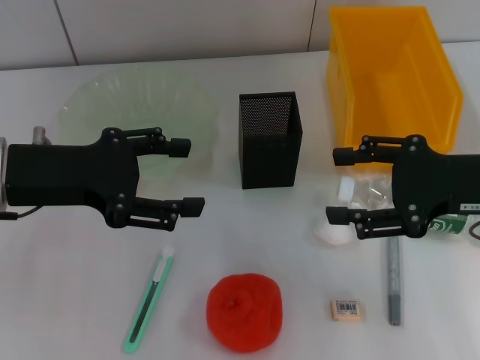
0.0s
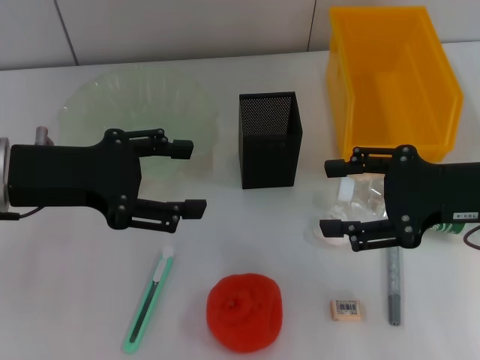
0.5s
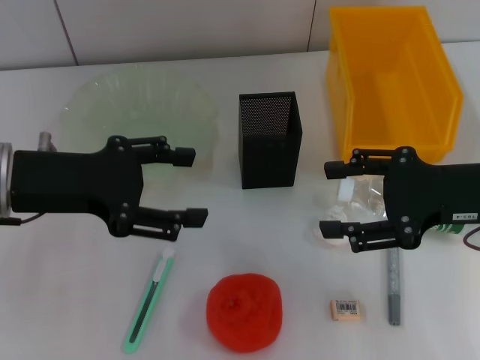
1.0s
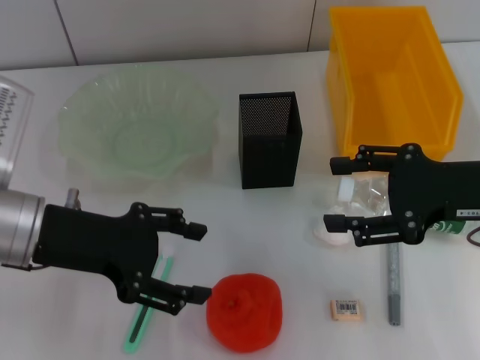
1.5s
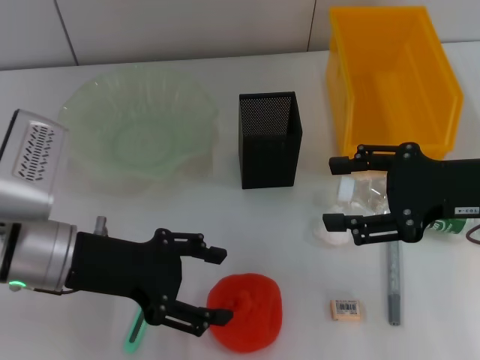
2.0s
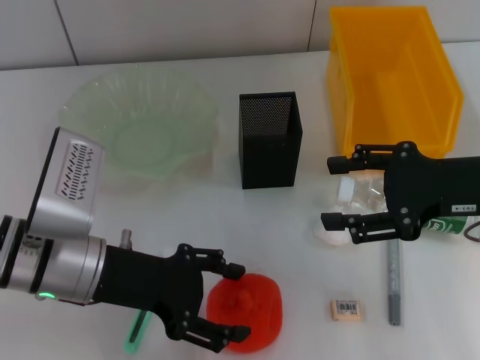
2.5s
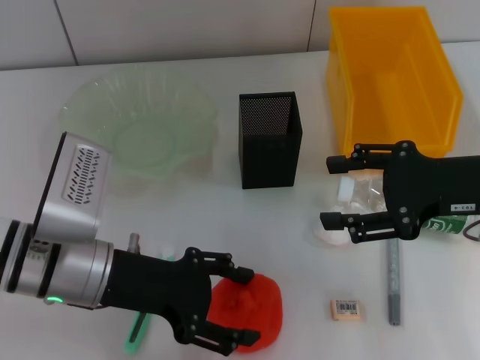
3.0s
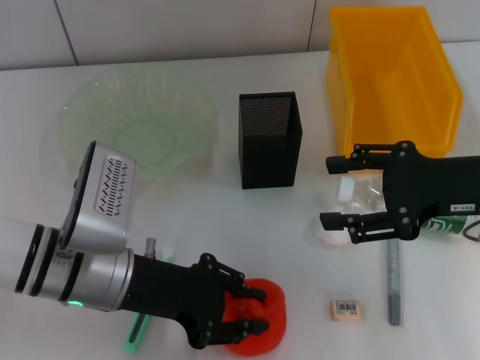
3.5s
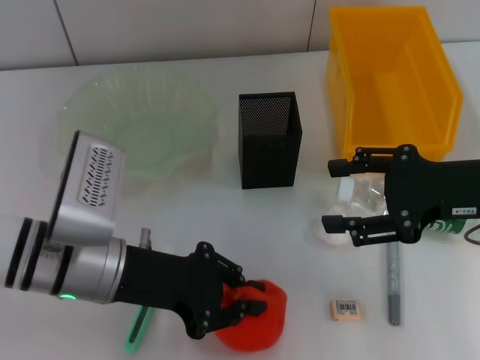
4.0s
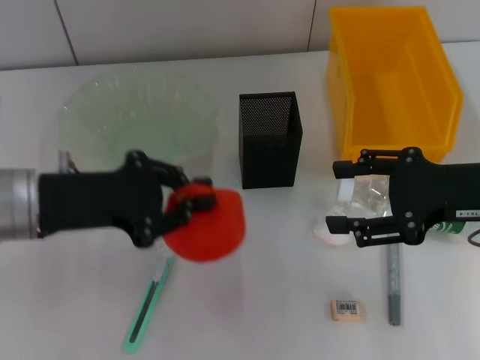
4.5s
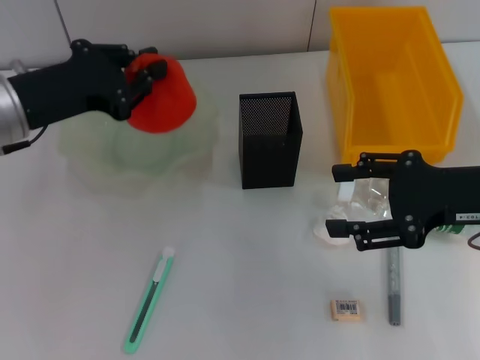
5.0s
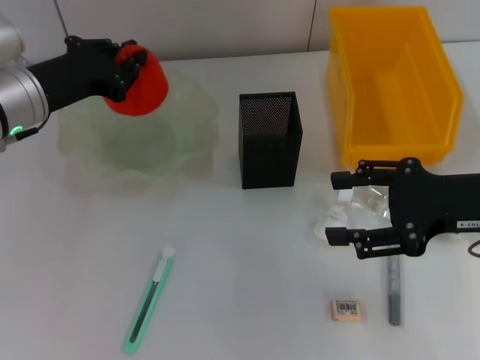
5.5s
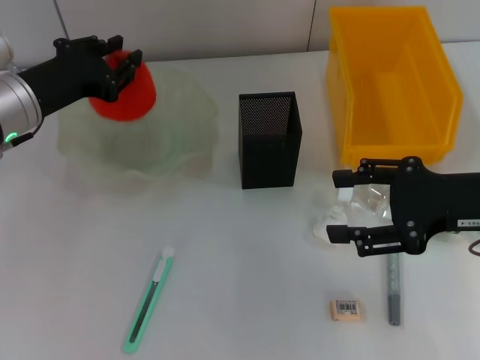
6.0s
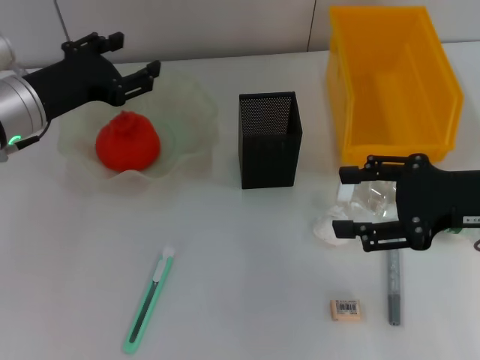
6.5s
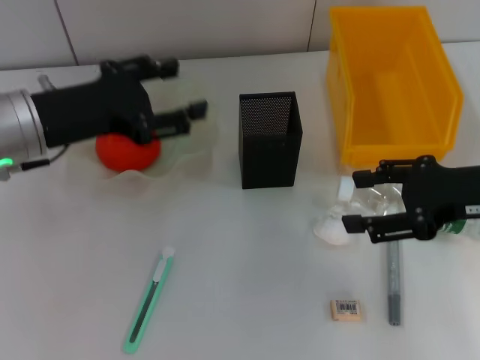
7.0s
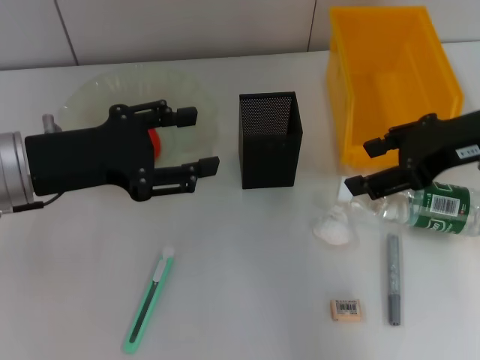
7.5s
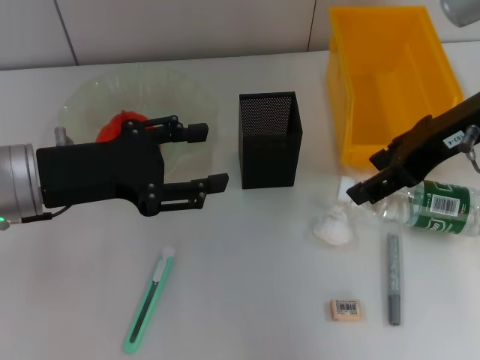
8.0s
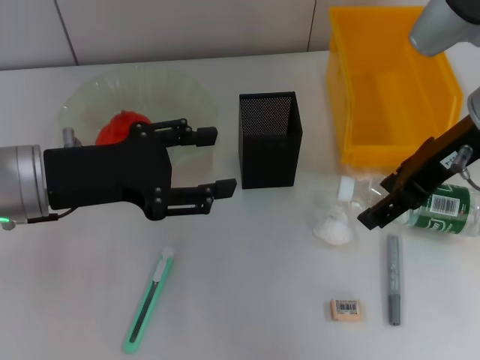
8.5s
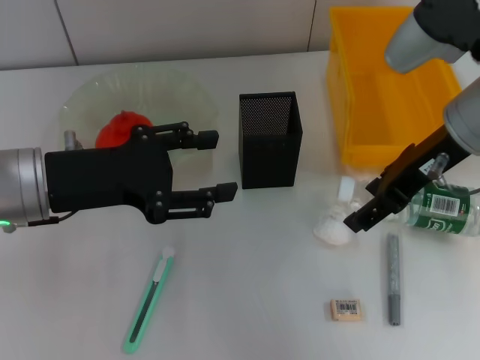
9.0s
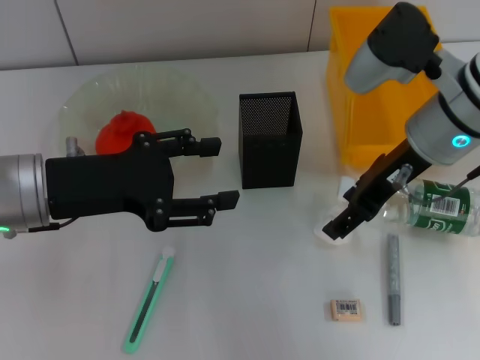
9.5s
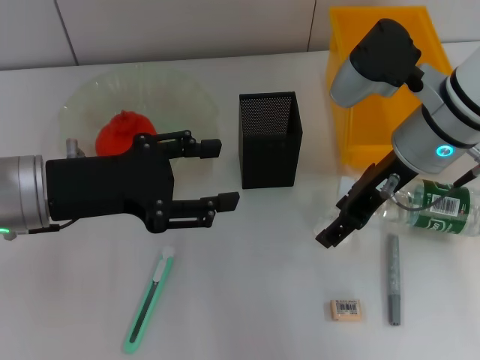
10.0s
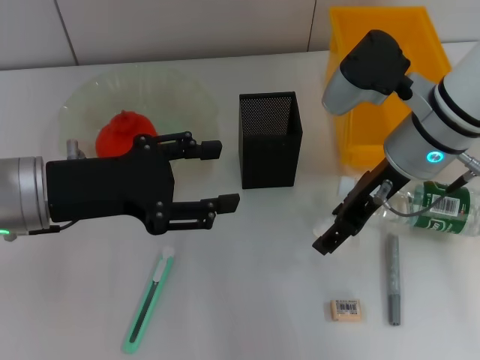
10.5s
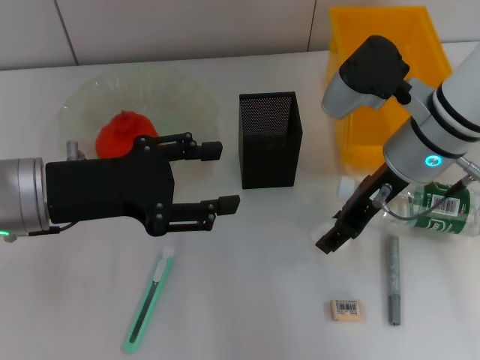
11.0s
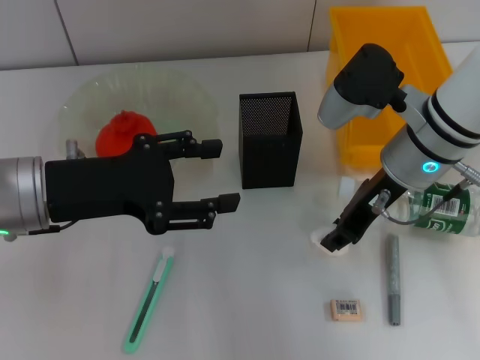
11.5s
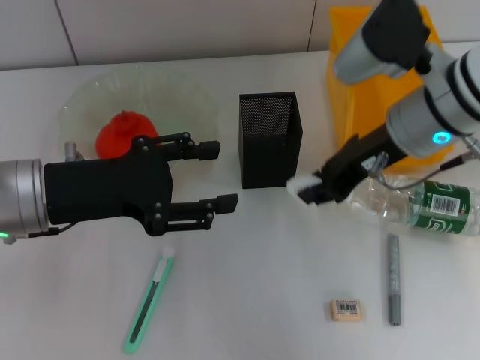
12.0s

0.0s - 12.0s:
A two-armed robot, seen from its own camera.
Step, 0.0s - 3.5s: Grab the orange with the left hand.
Step, 4.0s - 6.0s: Place the orange into the fruit bowl with the left hand.
Step, 6.5s - 11.0s: Grab the paper ball with the right hand.
0.0s - 2.0s: The left gripper travels downward by about 5 cm.
2.0s - 4.0s: The left gripper closes its fingers.
4.0s - 6.0s: The left gripper moves forward and to the left, some 15 cm.
6.0s - 8.0s: The left gripper is displaced backward by about 10 cm, and opens up, while the right gripper heads upward and forward, covering about 10 cm.
8.0s - 10.0s: The right gripper moves downward, about 5 cm.
10.0s - 12.0s: The right gripper closes.

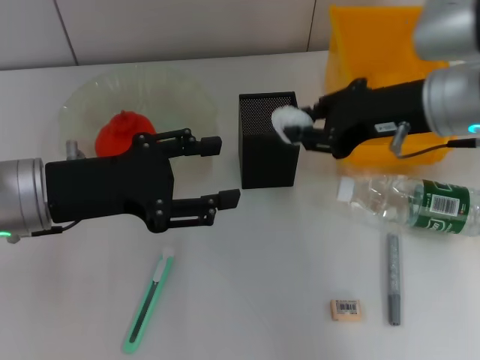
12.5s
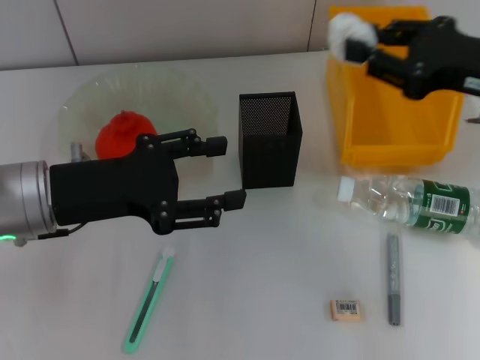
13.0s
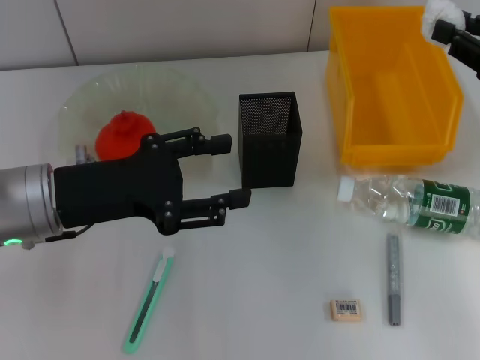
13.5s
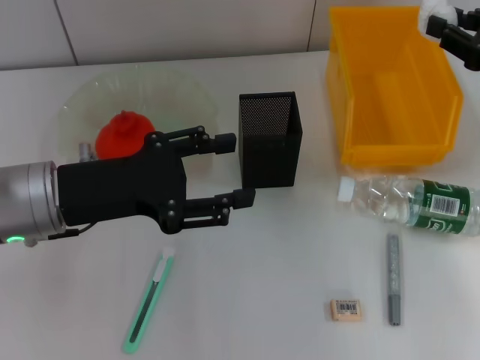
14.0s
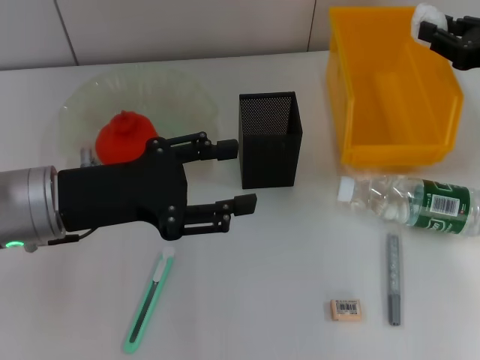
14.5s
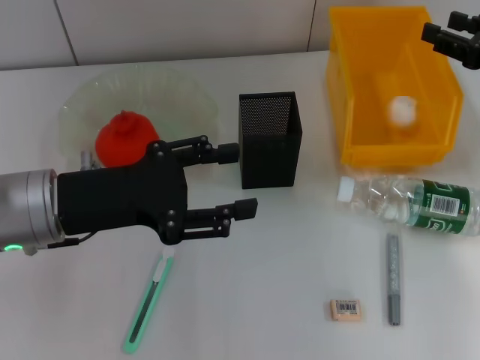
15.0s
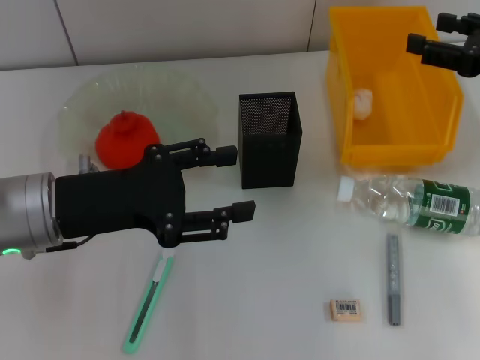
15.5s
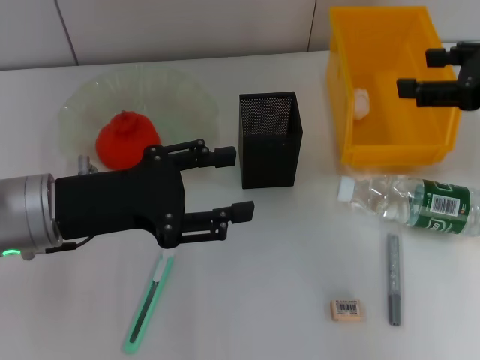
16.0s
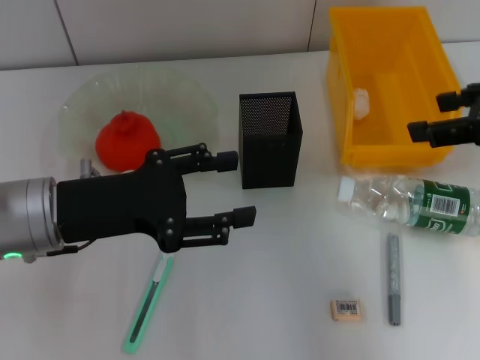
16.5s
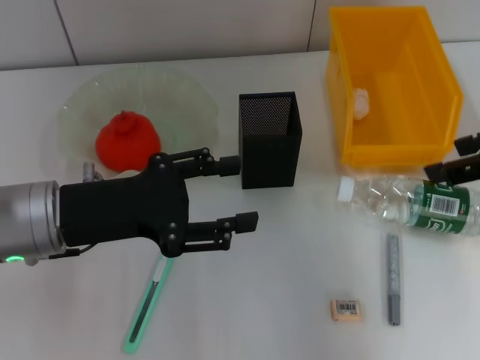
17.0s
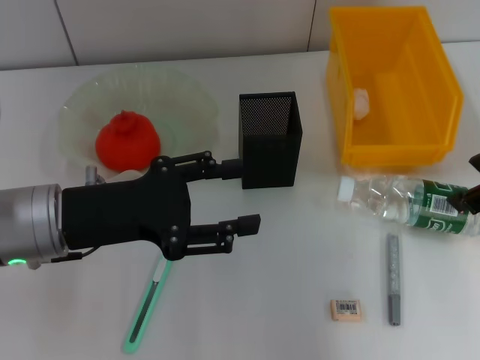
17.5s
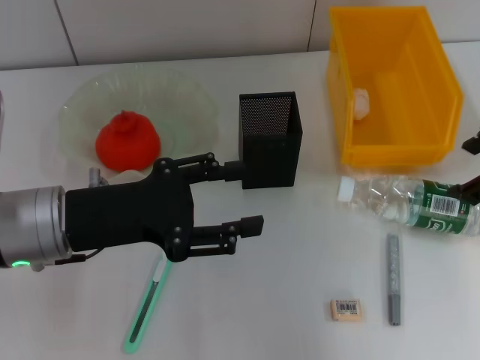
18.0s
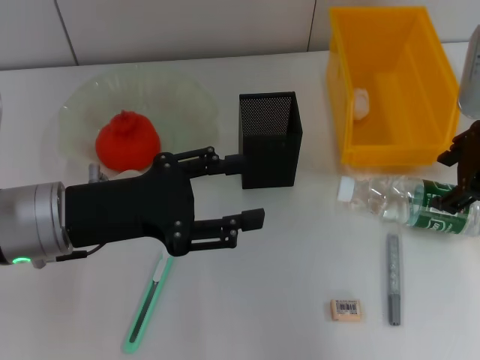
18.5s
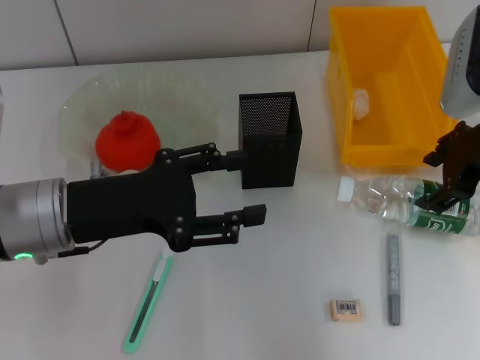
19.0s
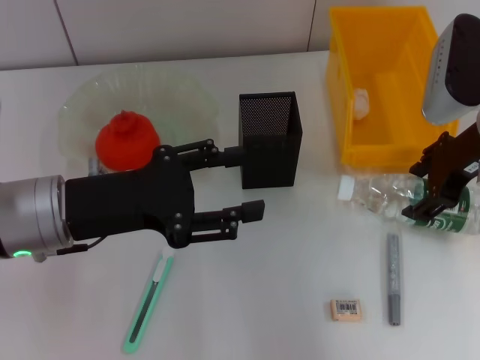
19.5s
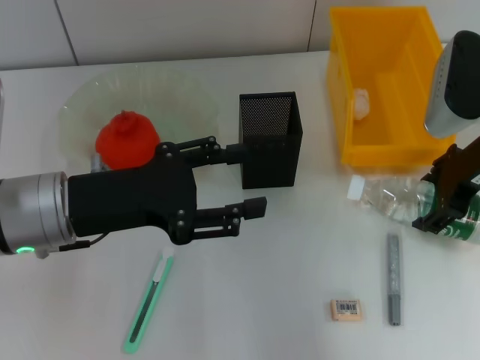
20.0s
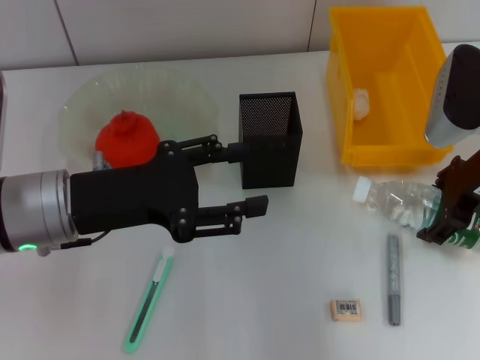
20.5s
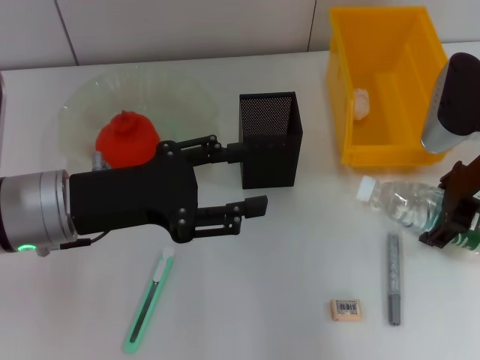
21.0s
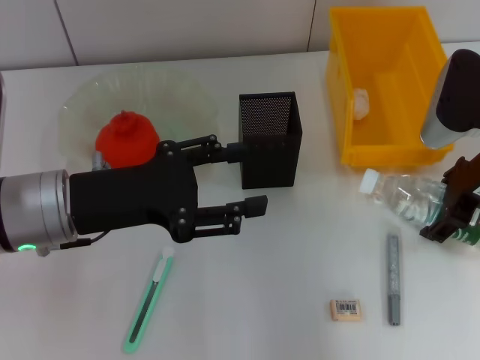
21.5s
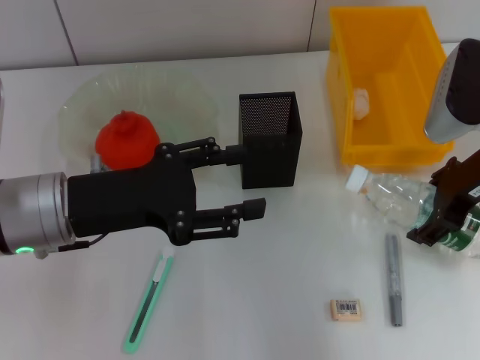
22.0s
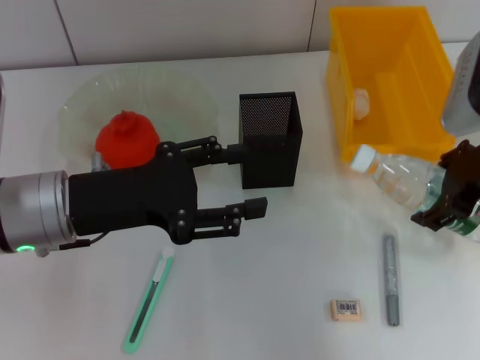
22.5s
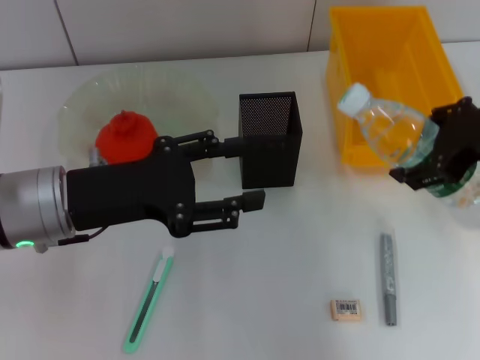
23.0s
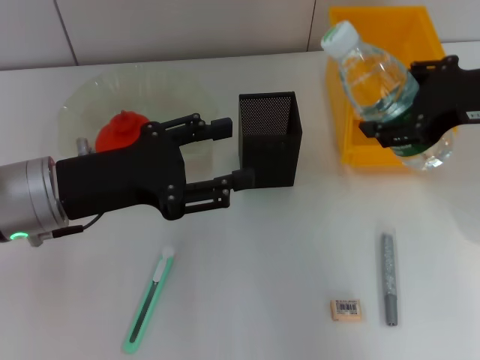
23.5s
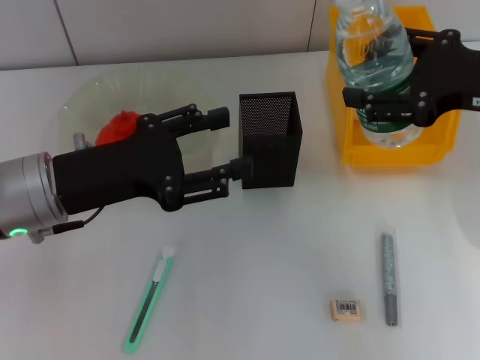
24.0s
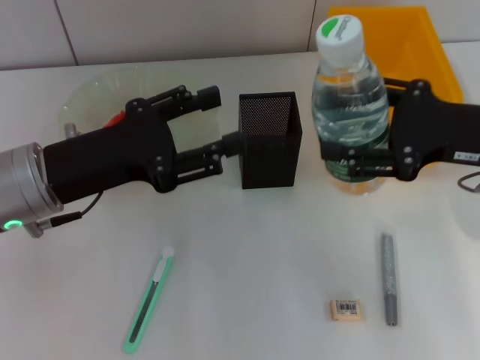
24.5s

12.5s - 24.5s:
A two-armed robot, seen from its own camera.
Step, 12.5s - 15.0s: Place the paper ball into the trash can with the right hand.
Step, 15.5s - 21.0s: Grab the water bottle with the right hand.
12.5s - 14.5s: The right gripper goes about 15 cm to the right.
14.5s - 16.5s: The right gripper heads upward and backward, covering some 10 cm, and opens.
16.5s - 18.5s: The right gripper is displaced forward by roughly 5 cm.
18.5s - 22.5s: The grippers move only a little.

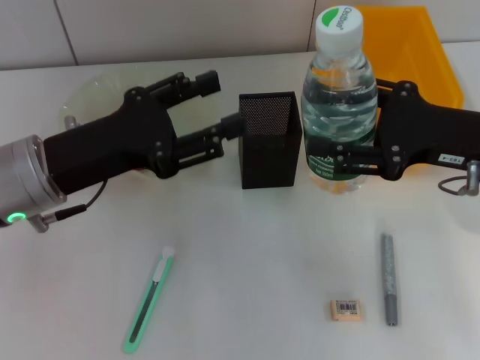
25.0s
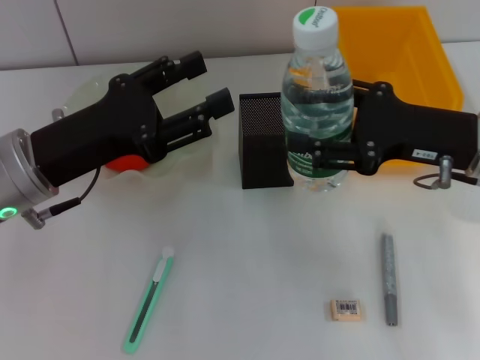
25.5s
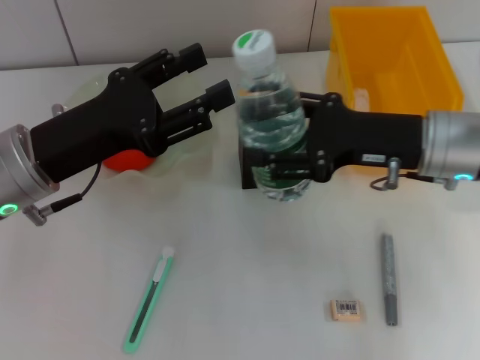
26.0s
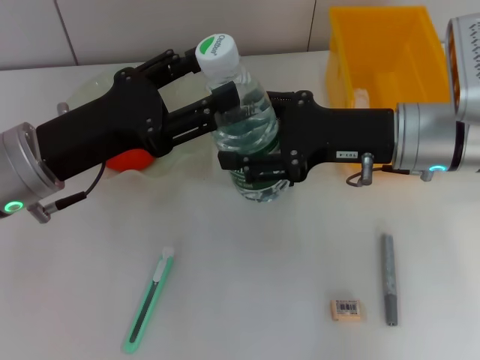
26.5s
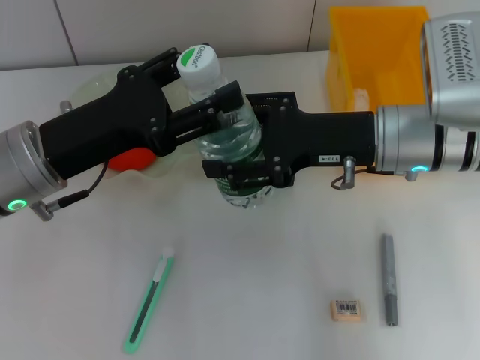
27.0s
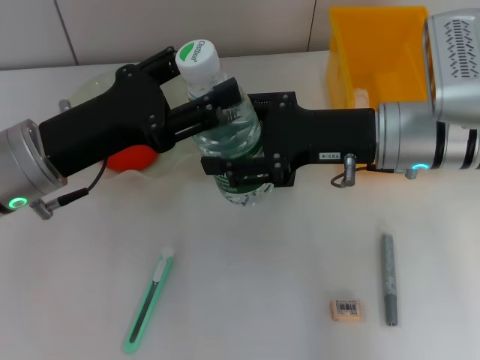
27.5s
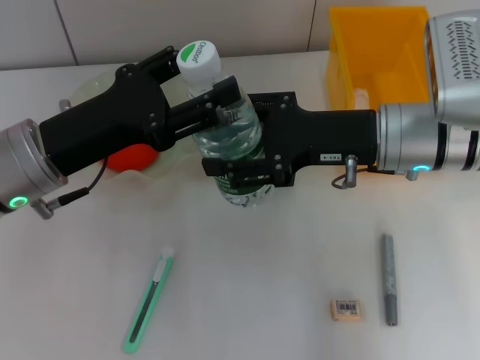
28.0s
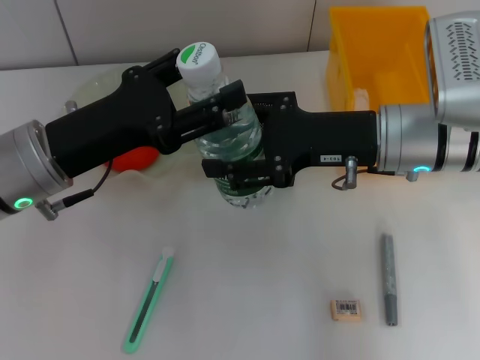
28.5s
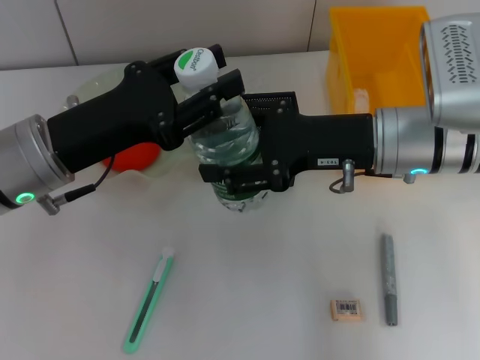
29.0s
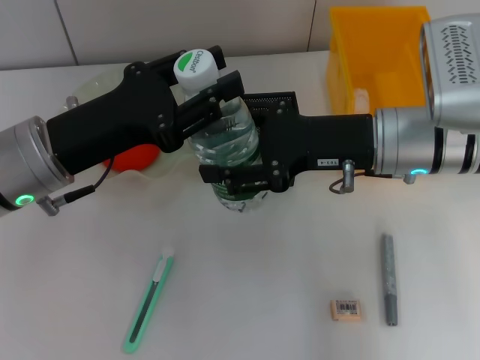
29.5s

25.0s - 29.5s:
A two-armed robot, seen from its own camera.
25.0s - 27.0s: The right gripper is displaced to the left by roughly 10 cm.
27.0s - 29.5s: The left gripper closes.
